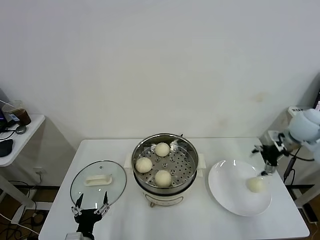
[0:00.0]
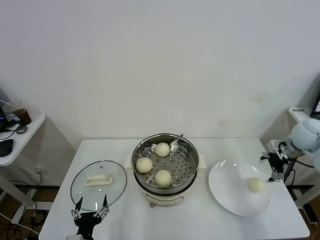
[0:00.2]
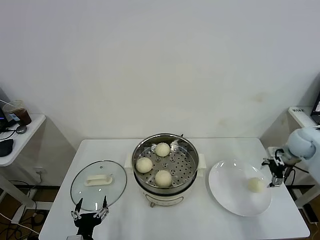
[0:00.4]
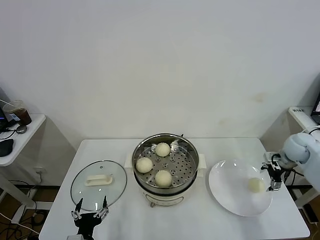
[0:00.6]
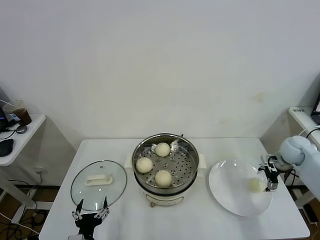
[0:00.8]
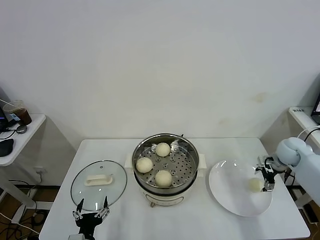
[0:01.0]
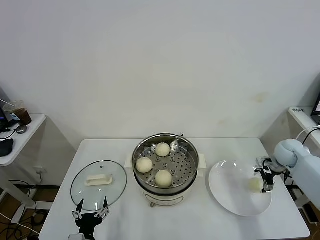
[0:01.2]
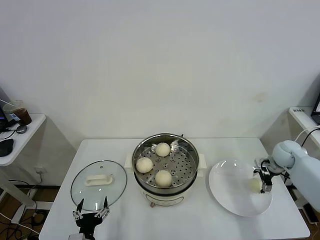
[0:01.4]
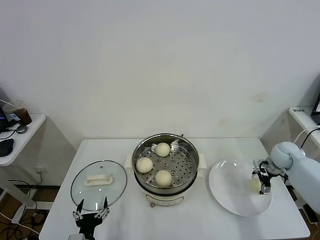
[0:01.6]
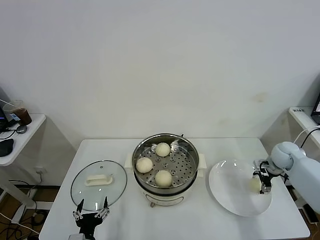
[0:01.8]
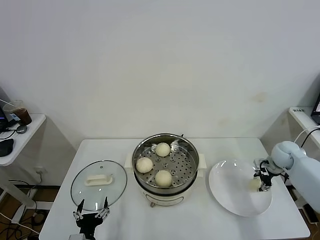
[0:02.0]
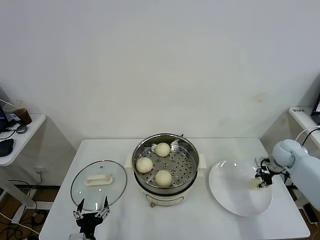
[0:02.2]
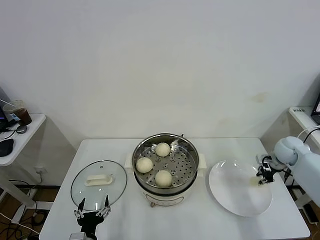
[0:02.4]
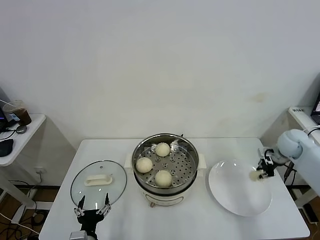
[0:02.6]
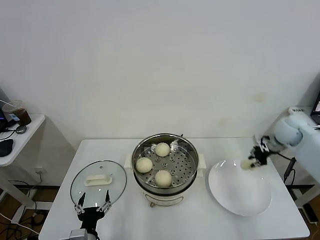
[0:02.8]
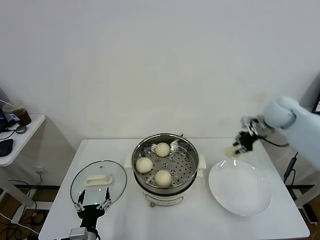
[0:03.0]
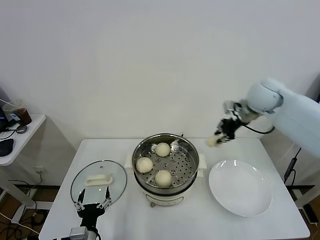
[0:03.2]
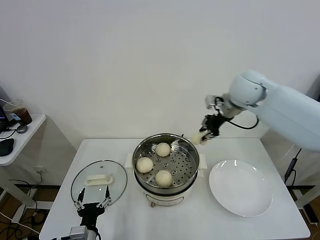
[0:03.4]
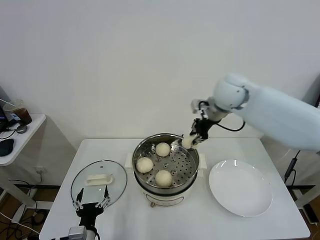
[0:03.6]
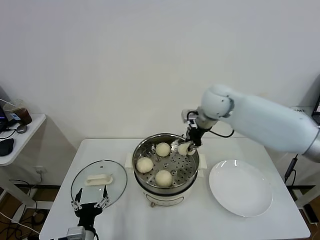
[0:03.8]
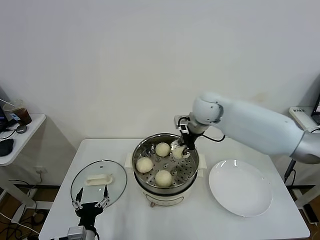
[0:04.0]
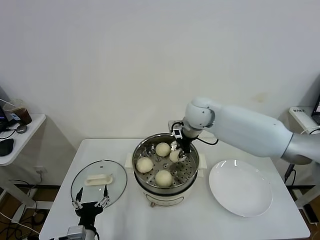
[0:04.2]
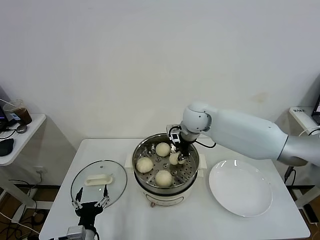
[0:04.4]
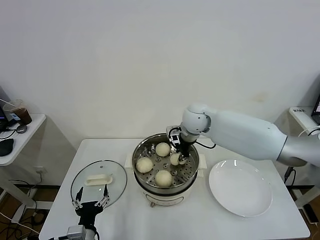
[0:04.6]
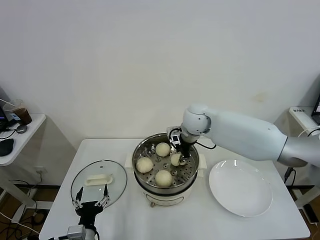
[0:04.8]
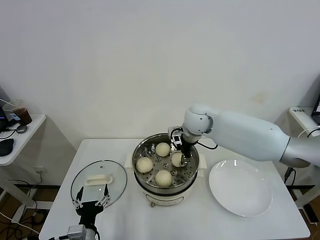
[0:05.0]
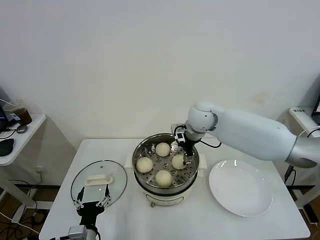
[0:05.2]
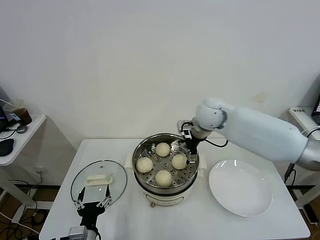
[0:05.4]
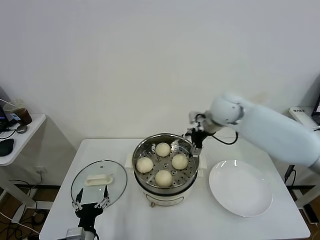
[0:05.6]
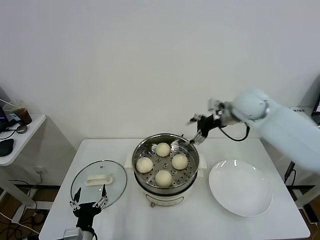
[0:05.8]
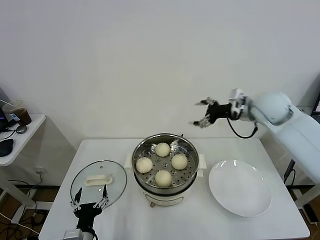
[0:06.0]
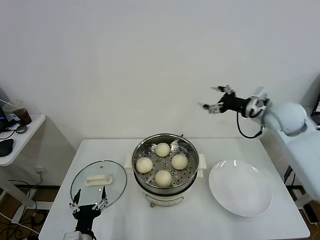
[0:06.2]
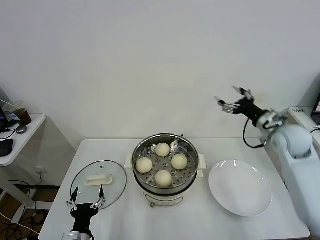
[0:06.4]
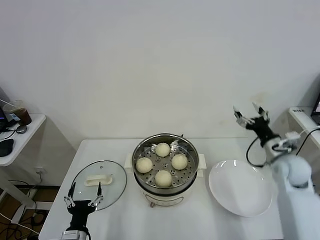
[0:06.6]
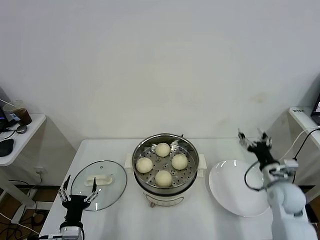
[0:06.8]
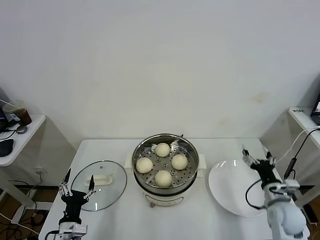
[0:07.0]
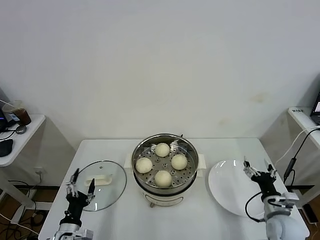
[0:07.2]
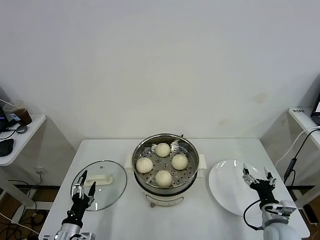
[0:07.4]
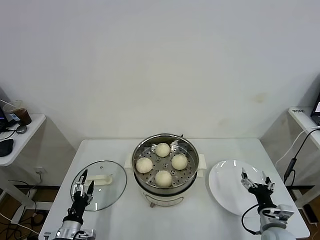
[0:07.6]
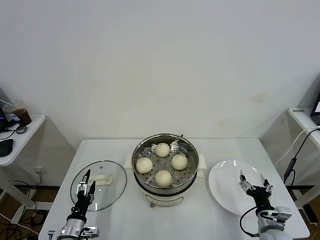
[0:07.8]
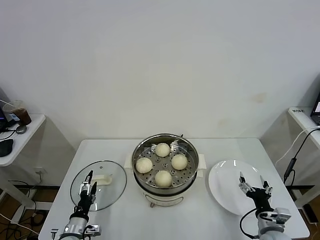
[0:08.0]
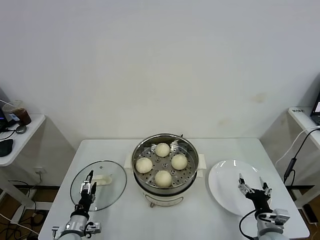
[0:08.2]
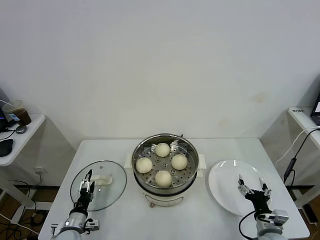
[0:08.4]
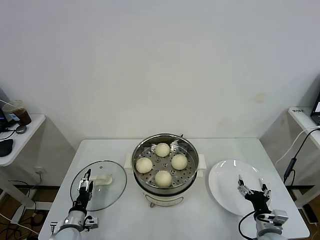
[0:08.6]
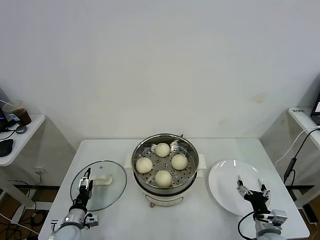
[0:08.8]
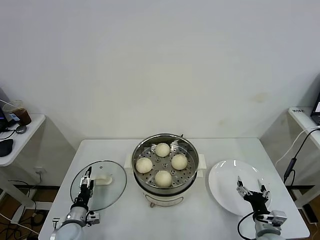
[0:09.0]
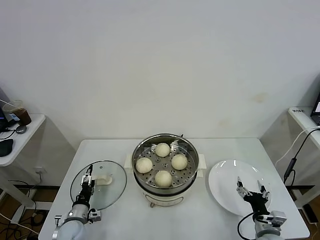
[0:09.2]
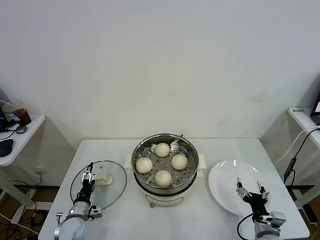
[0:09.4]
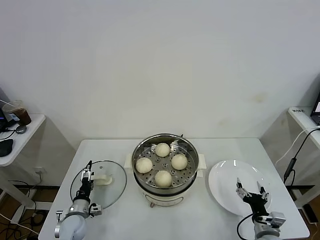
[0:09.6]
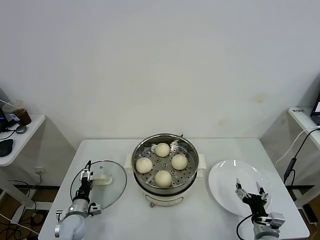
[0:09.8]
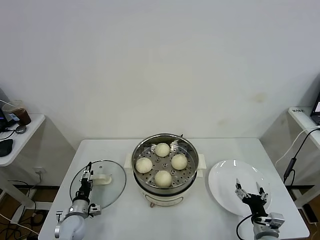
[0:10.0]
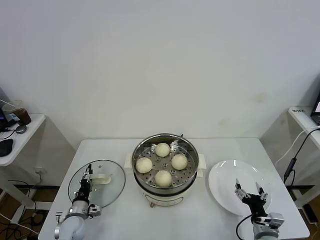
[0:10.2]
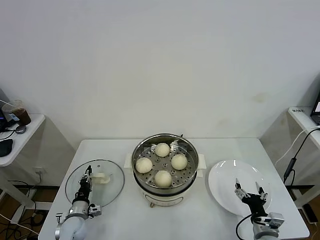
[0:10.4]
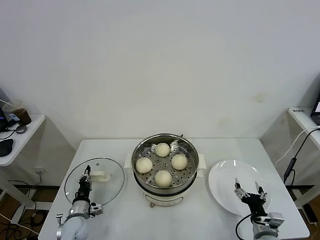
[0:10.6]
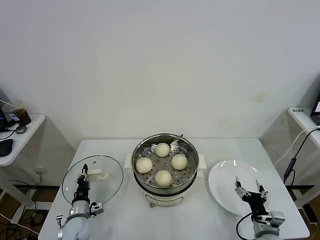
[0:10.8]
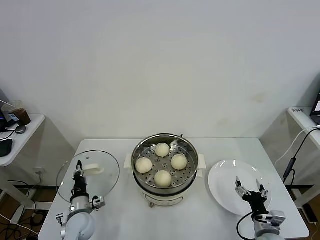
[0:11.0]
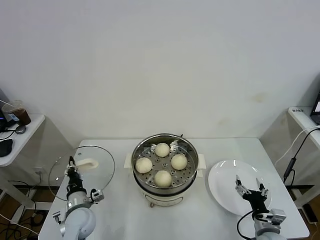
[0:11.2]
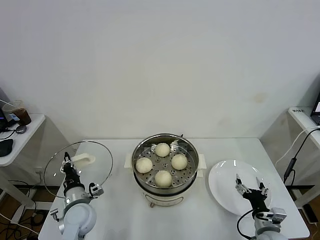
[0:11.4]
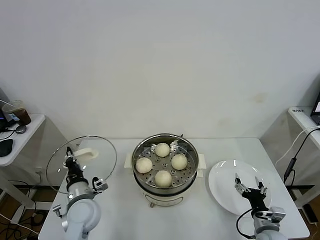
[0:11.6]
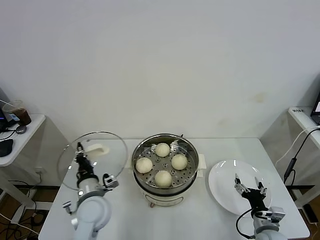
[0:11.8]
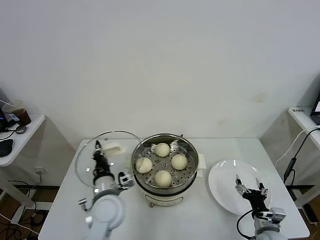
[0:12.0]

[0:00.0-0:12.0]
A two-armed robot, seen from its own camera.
Task of the whole recording: take steamed baozi put them in steamer.
Step, 0:00.0 to 0:02.0: Grasp the baozi in the plate with right gripper.
Step, 0:02.2 to 0:05.2: Place the baozi on the steamer with right gripper.
Step, 0:05.6 to 0:10.6: Grasp the pot lid with left gripper.
0:00.0 to 0:01.6: The right gripper heads downward, covering roughly 15 cm.
0:01.6 to 0:03.0: The right gripper travels upward and to the left by about 20 cm, and closes its fingers.
0:03.0 to 0:04.4: The right gripper travels to the left by roughly 25 cm.
0:04.4 to 0:06.0: The right gripper goes about 20 cm to the right, and opens up.
0:06.0 to 0:07.6: The right gripper goes roughly 40 cm downward and backward, while the left gripper moves to the left and downward, about 10 cm.
0:07.6 to 0:09.0: The left gripper travels forward by about 5 cm.
0:09.0 to 0:10.4: The left gripper closes.
0:10.4 to 0:12.0: The left gripper goes some 25 cm upward and to the right.

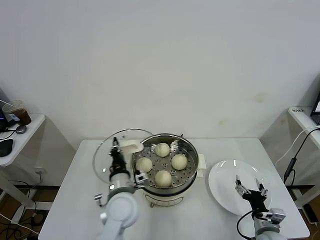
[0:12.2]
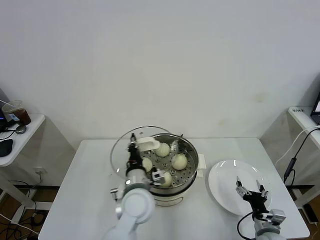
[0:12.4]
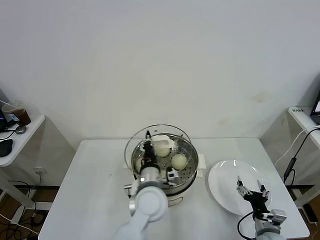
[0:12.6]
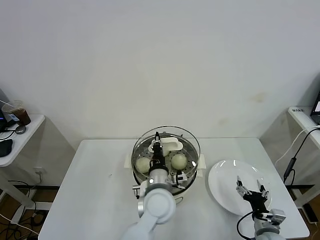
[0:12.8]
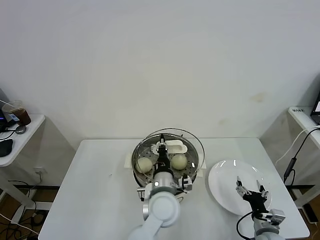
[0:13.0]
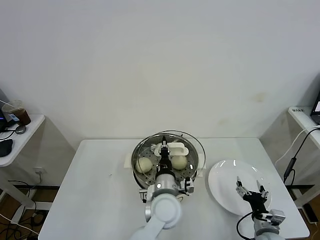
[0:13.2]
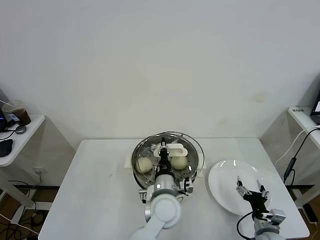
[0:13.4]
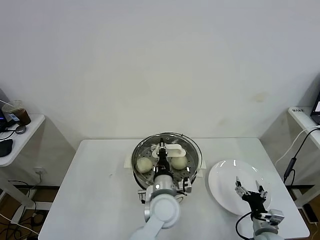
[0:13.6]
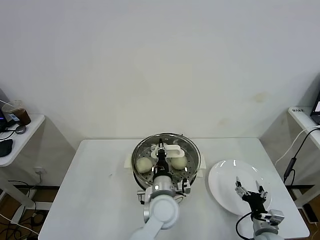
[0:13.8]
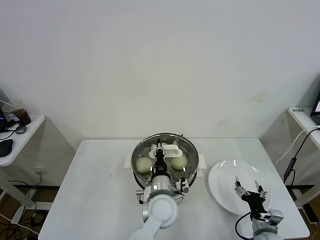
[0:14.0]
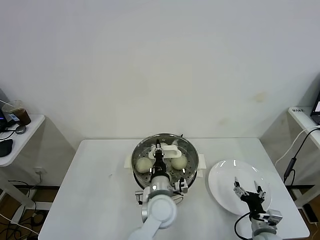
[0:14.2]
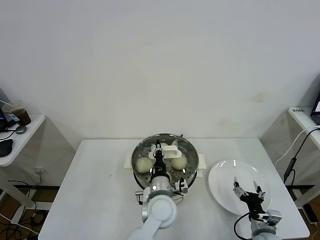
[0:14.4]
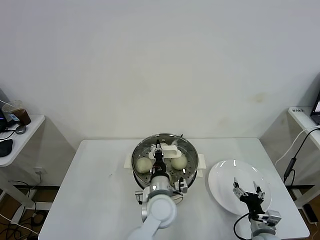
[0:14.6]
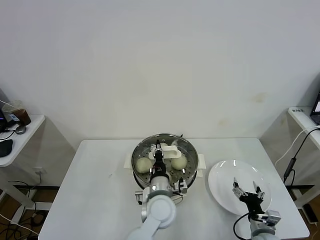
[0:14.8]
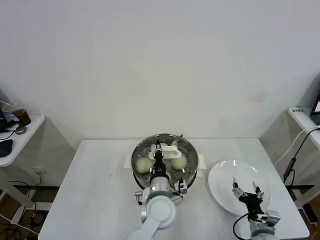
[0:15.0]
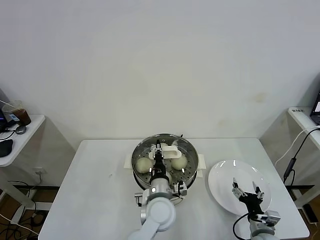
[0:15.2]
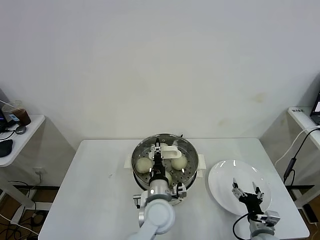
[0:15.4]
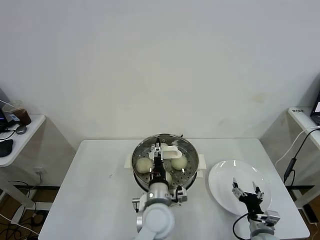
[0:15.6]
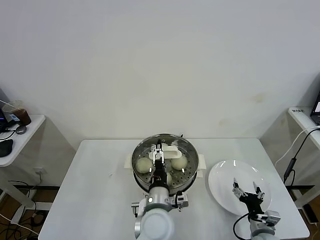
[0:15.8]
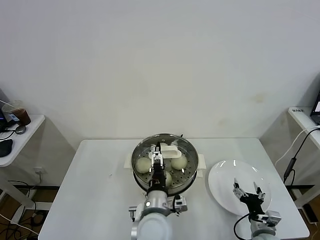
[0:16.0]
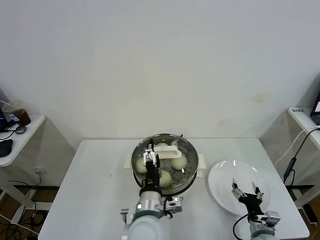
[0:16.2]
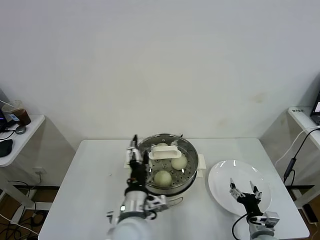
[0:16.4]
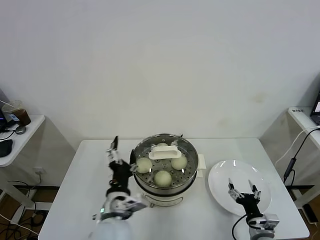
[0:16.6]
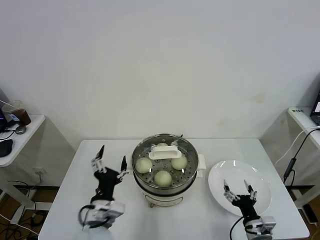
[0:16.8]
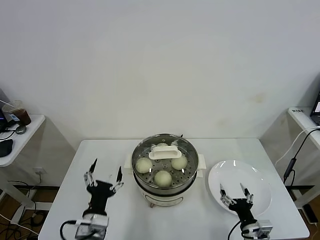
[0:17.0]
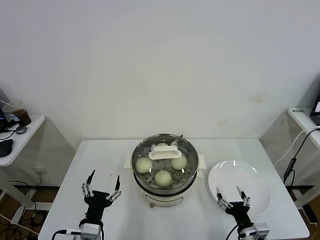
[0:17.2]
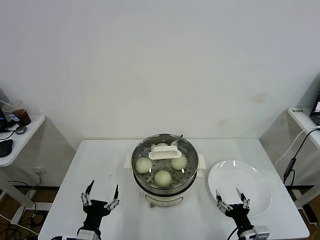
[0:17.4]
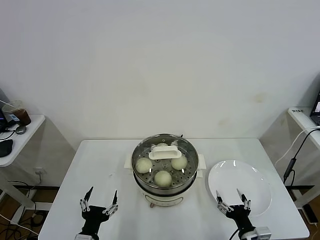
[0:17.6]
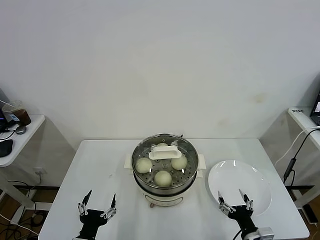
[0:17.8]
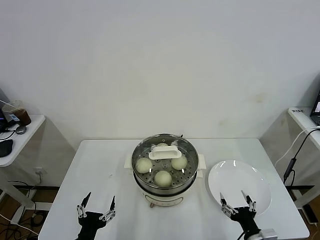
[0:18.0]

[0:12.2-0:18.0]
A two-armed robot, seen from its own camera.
Task of the whole recording: take steamed baozi put them in steamer.
Step, 0:12.2 to 0:15.6: Place the pot lid on the steamer with left gripper.
0:12.2 to 0:13.6: The left gripper shifts roughly 15 cm to the right.
0:13.6 to 0:15.0: There are only small adjustments of the grippers.
0:15.0 to 0:16.6: The left gripper goes about 15 cm to the left, backward and upward, and opens its fingers.
0:16.6 to 0:18.0: The right gripper moves backward, about 5 cm; the left gripper goes roughly 20 cm to the left, downward and backward.

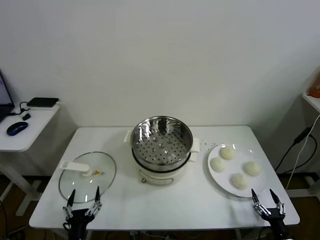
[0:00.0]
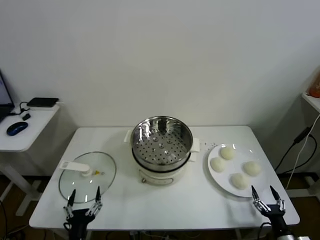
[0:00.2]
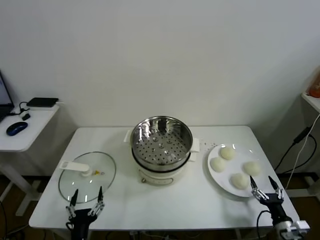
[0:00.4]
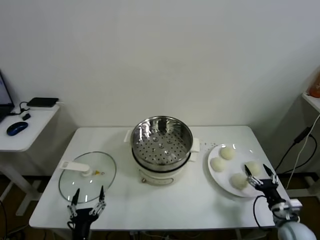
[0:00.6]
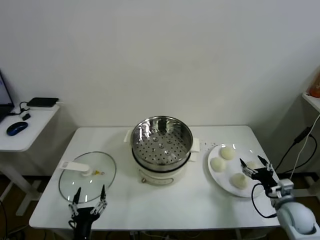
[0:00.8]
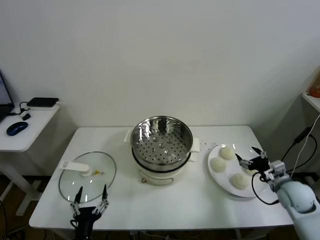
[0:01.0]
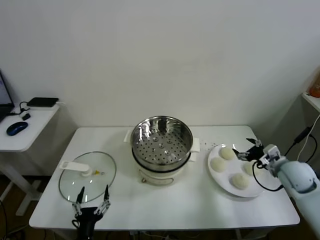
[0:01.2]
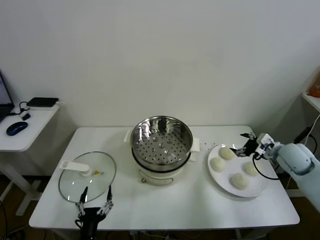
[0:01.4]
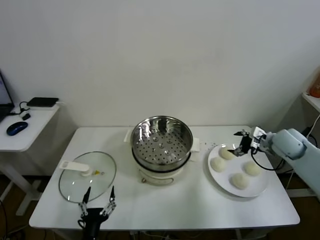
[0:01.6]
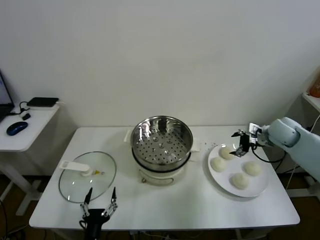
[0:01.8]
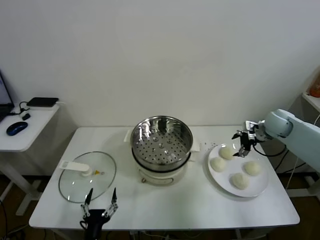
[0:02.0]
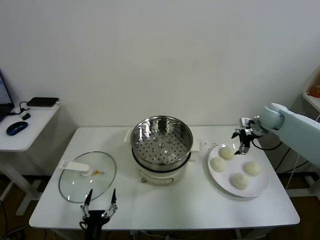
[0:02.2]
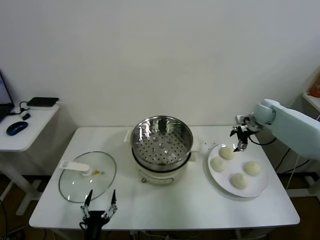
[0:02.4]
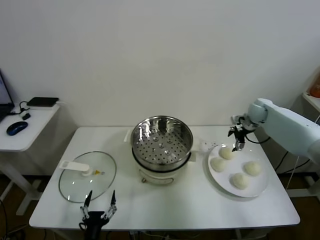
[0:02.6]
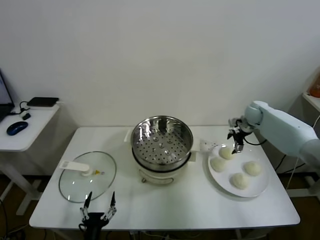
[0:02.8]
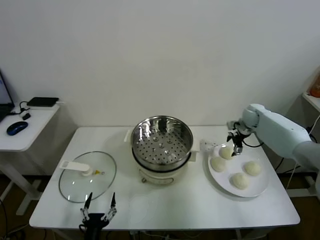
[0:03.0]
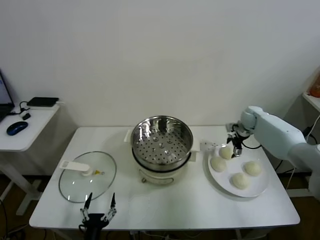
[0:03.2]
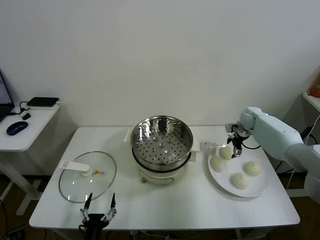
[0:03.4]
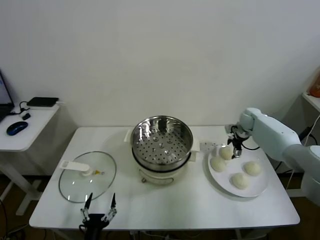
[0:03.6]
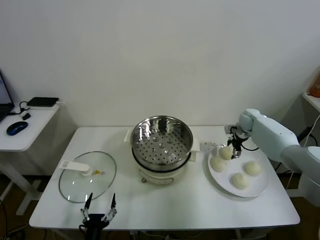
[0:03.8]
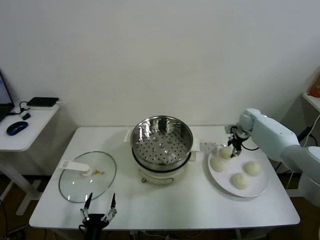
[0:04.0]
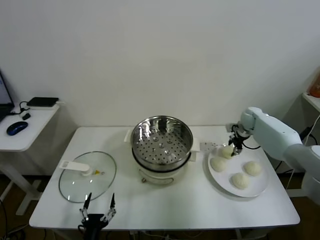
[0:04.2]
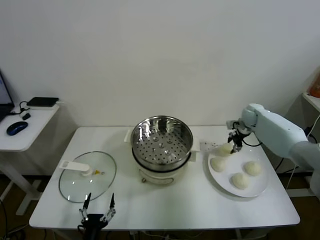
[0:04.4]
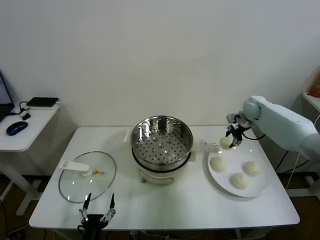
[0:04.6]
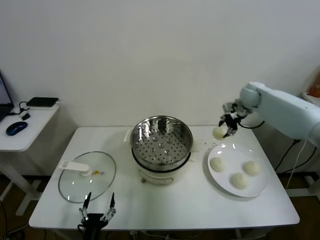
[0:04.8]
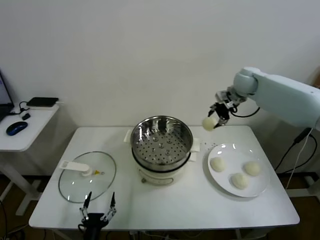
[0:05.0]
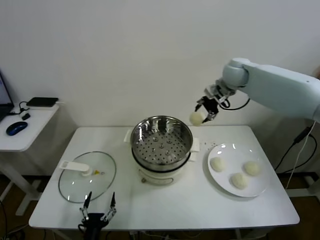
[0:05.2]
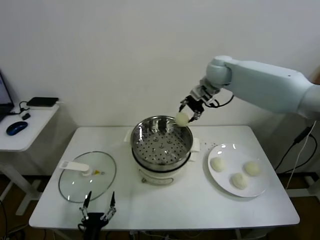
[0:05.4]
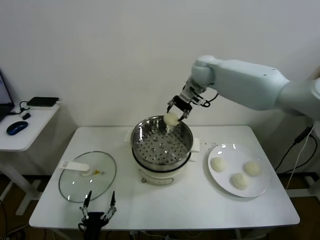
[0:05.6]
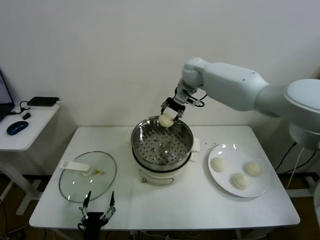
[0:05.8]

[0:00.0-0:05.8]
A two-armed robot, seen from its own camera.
Task of the whole recording: take steamed baozi put them in steamer.
Step, 0:00.0 to 0:04.0: Grasp the baozi in the plate with right gripper.
0:01.4 to 0:02.8: The right gripper goes roughly 20 cm forward.
0:02.8 to 0:04.4: The right gripper closes up.
0:04.4 to 0:05.8: The right gripper goes about 30 cm to the left and upward.
